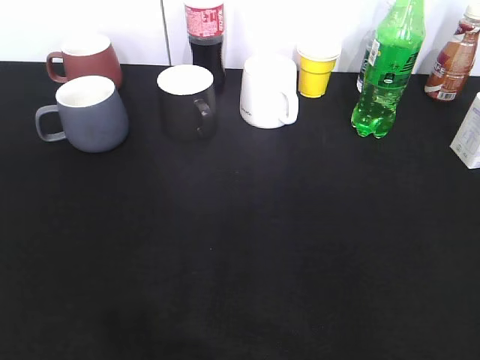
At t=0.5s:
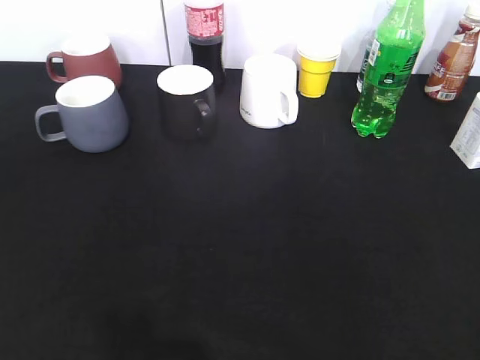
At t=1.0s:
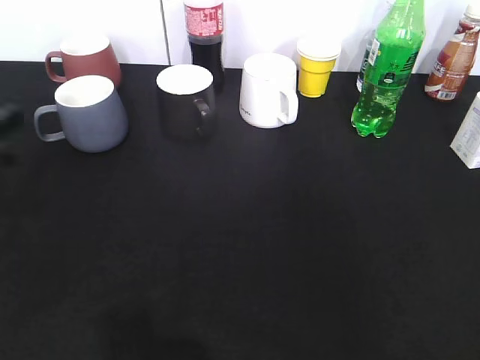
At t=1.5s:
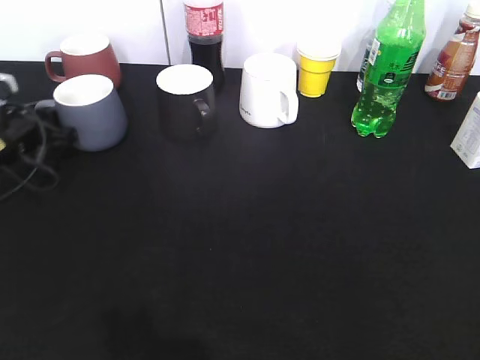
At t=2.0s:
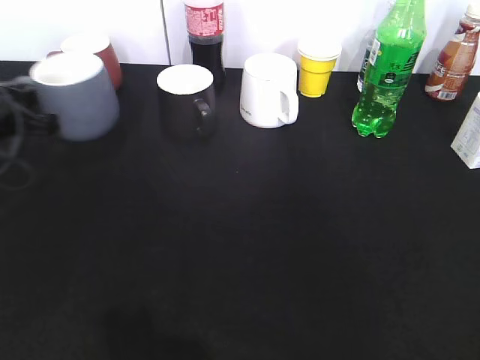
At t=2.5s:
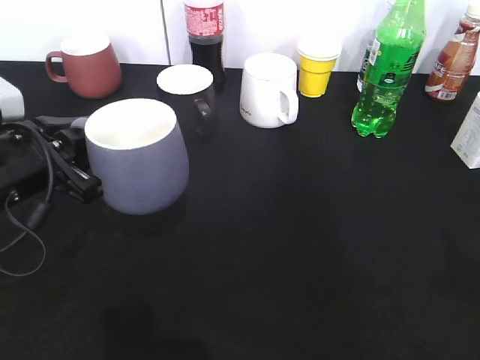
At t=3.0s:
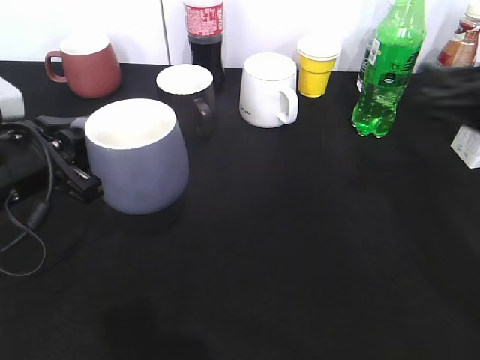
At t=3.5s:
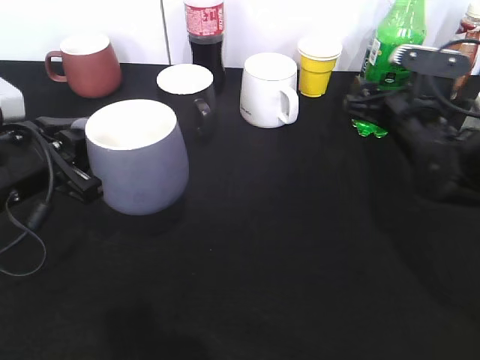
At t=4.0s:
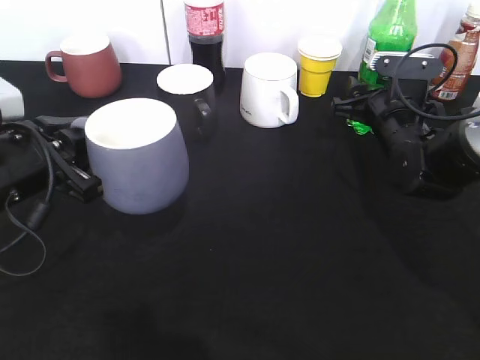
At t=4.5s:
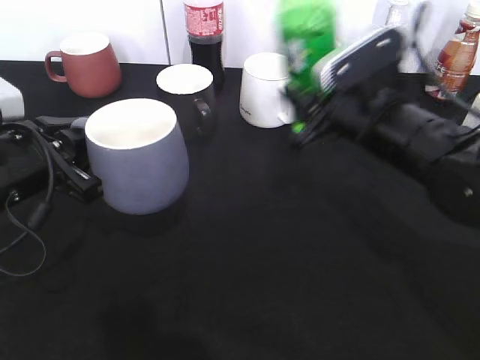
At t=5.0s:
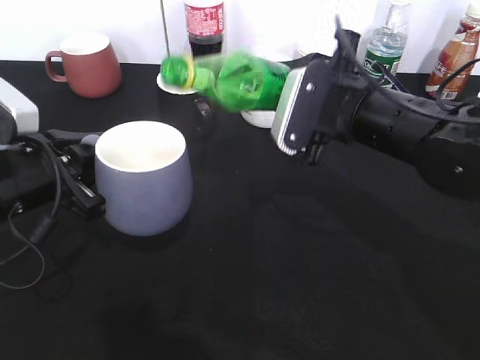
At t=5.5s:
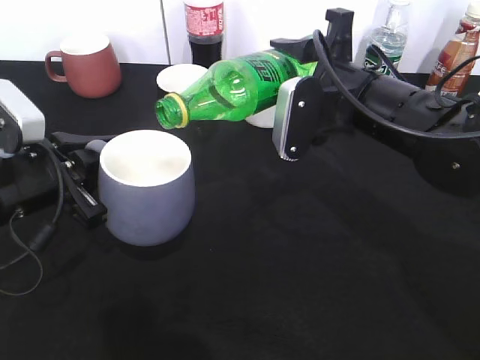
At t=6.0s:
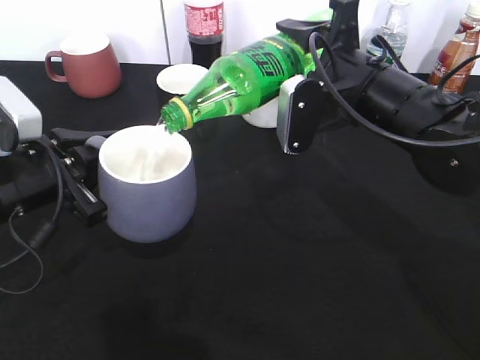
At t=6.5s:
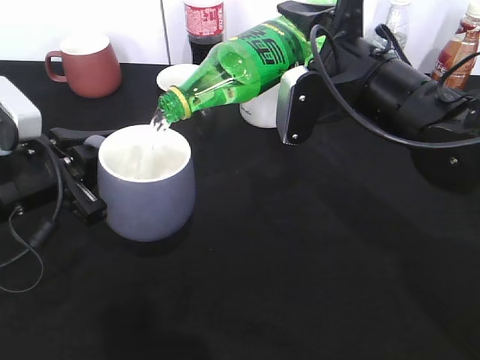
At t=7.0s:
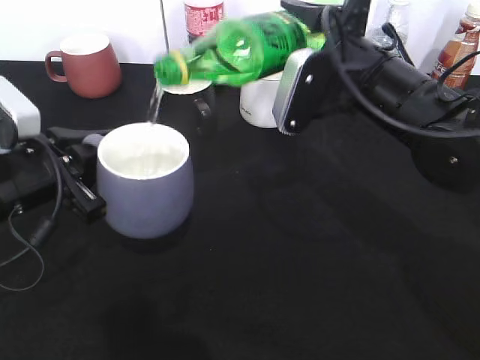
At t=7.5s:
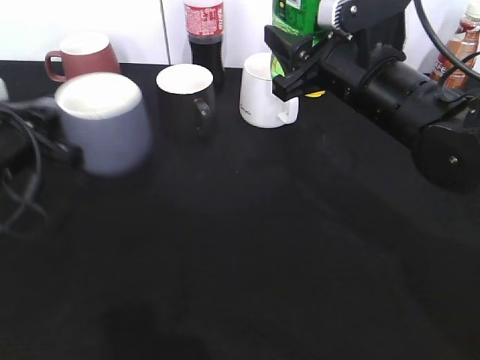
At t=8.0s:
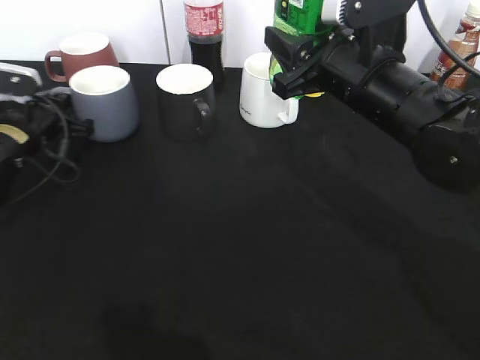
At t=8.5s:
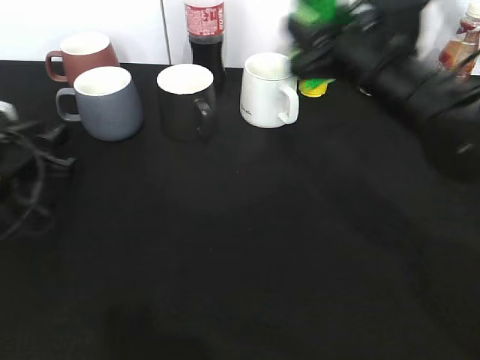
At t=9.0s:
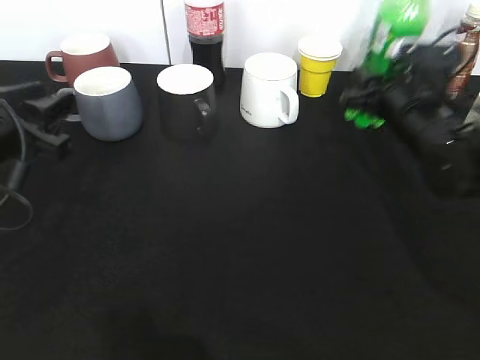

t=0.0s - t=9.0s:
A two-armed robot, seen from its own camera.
Step, t=0.0s - t=1.5s: Grasp the grey cup with left gripper.
Step, t=2.0s - t=2.5s: Lift the grey cup with left gripper.
Step, t=3.0s - t=4.0s: Grasp the bottle with sprite with right gripper.
Step, t=4.5s - t=7.0s: Pour the sprite from bottle to cup with right gripper.
t=0.0s - t=2.0s: The left gripper travels forward by some 35 cm, and closes up.
t=2.0s - t=4.5s: The right gripper travels forward and to the left by some 35 cm, and closes, while the left gripper shifts about 10 cm backward and to the right.
t=7.0s - t=9.0s: The left gripper reaches about 15 cm forward, then returns, and opens its fingers. Meanwhile the right gripper heads downward, to the right and forward, covering roughly 15 cm.

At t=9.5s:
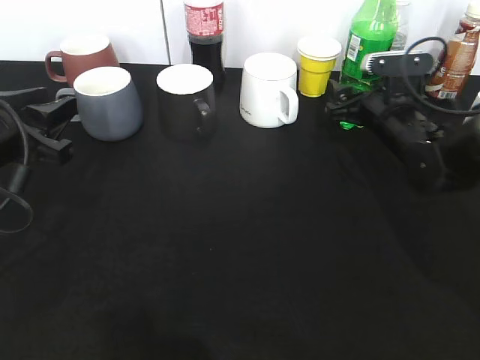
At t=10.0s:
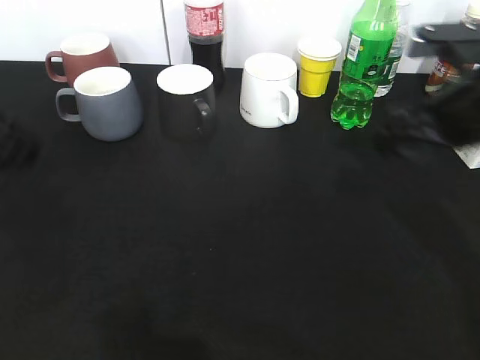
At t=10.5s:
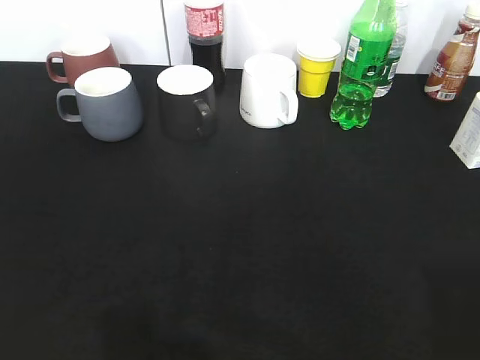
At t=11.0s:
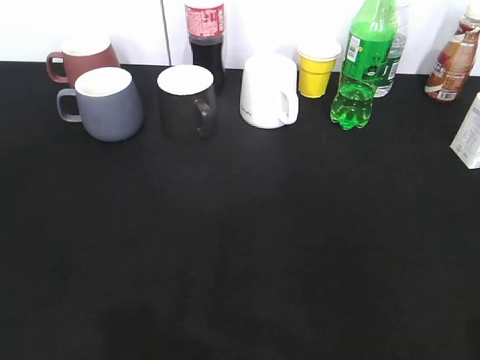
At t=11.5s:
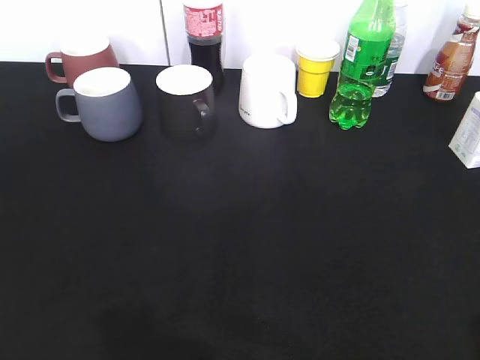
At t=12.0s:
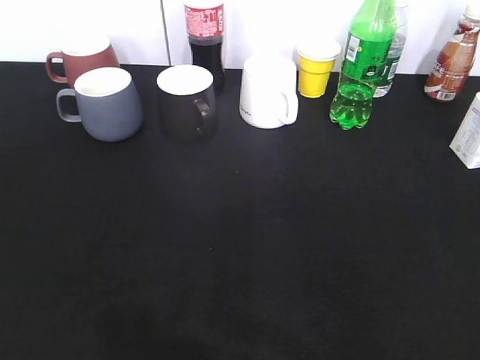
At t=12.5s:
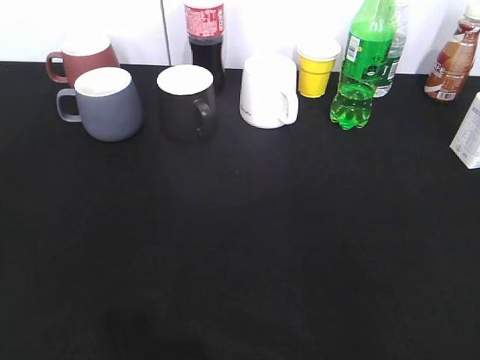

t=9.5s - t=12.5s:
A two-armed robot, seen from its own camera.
t=9.5s - t=11.0s: The left gripper heads backward, covering about 20 cm, and opens. The right gripper is displaced backward and upward by some 40 cm.

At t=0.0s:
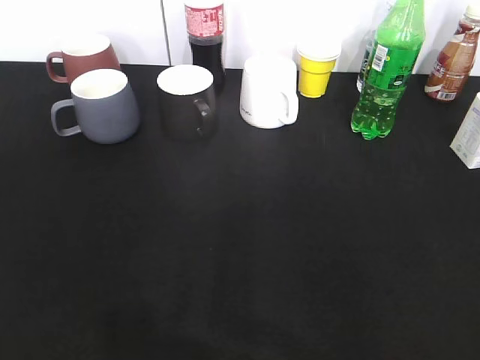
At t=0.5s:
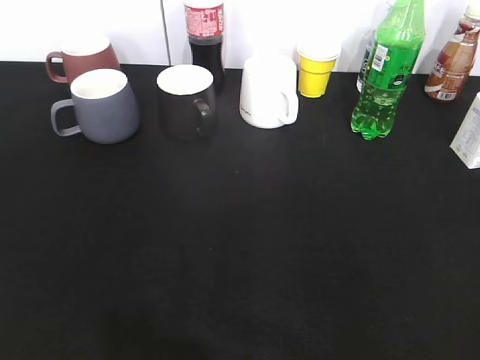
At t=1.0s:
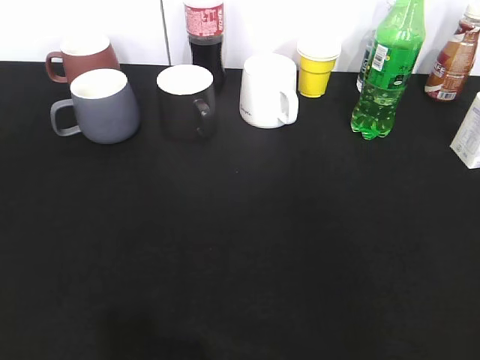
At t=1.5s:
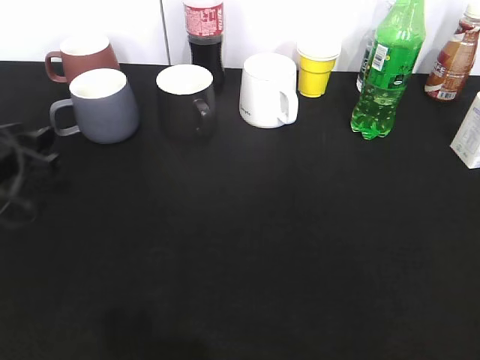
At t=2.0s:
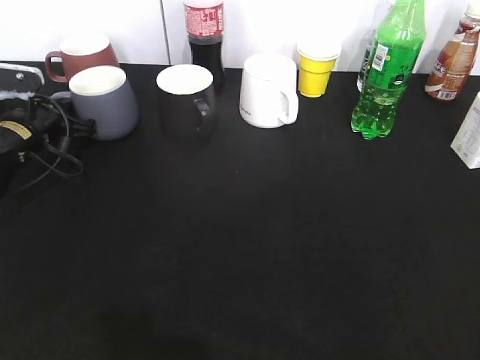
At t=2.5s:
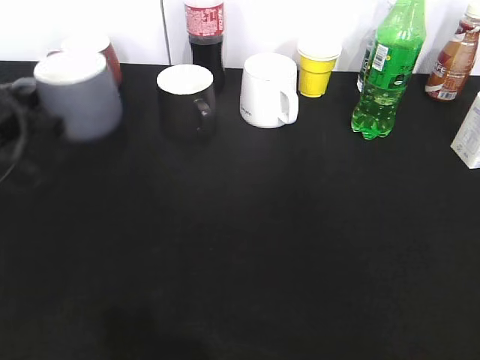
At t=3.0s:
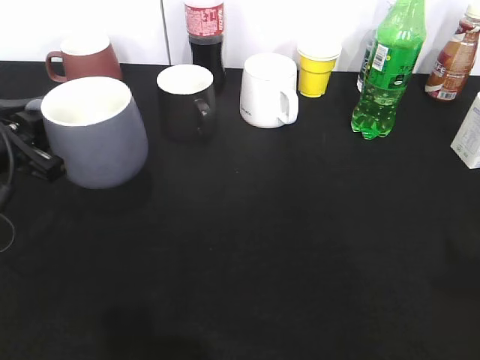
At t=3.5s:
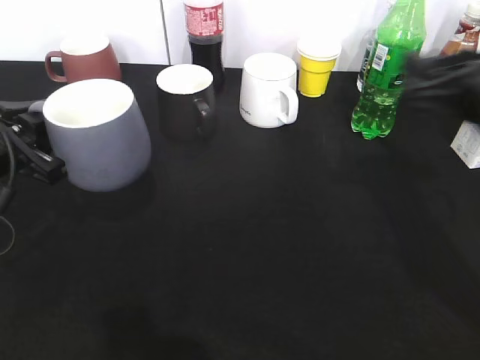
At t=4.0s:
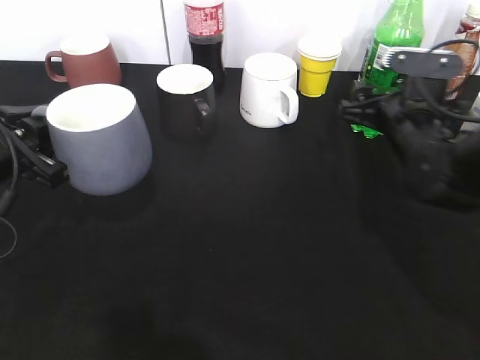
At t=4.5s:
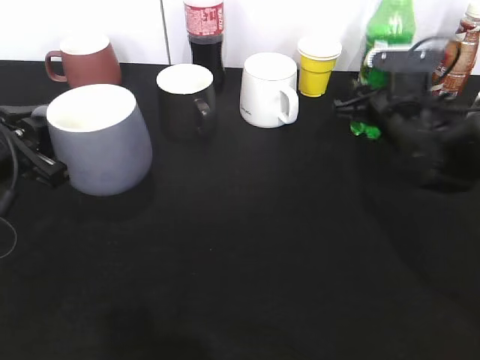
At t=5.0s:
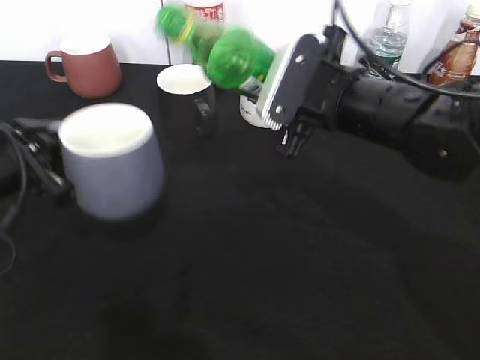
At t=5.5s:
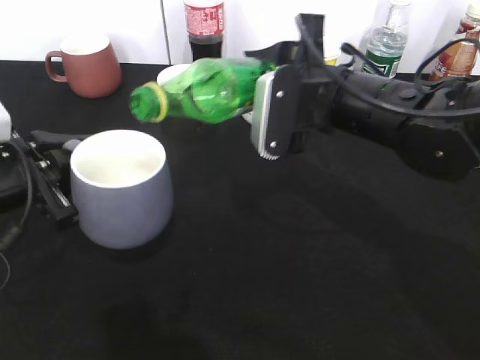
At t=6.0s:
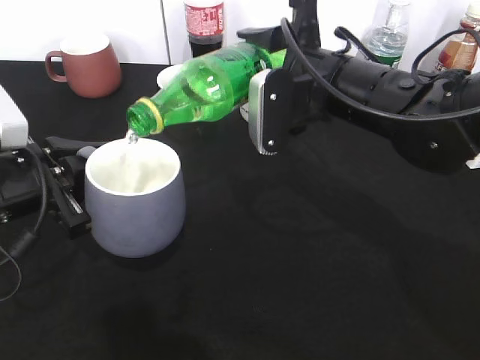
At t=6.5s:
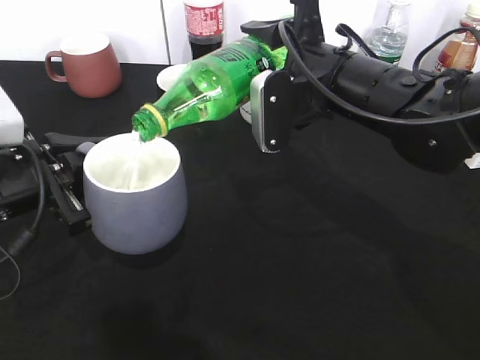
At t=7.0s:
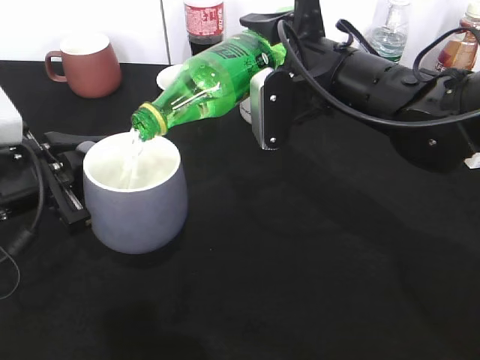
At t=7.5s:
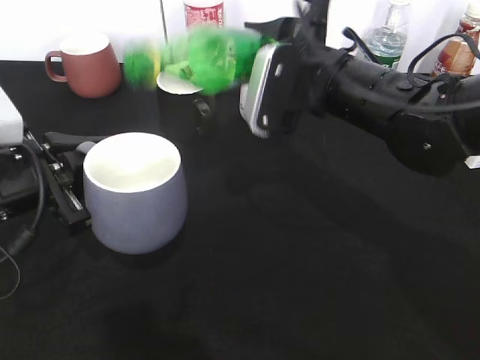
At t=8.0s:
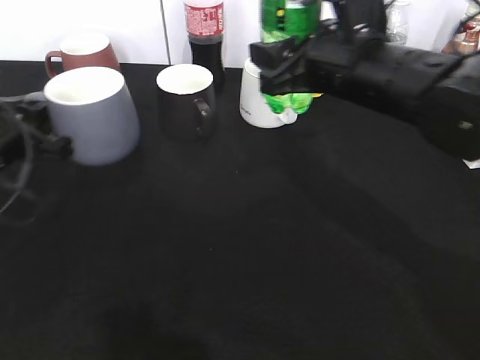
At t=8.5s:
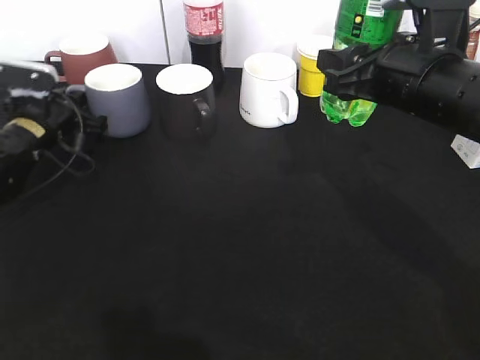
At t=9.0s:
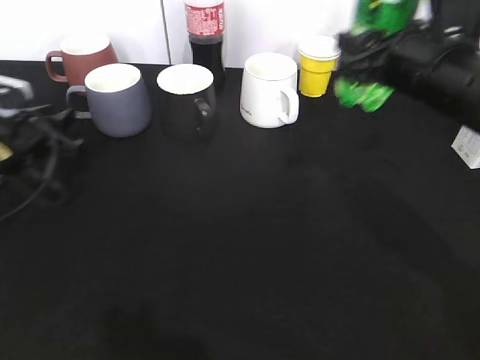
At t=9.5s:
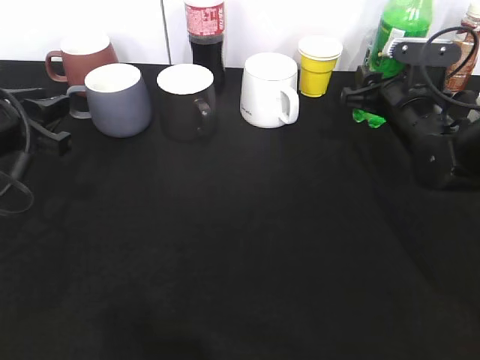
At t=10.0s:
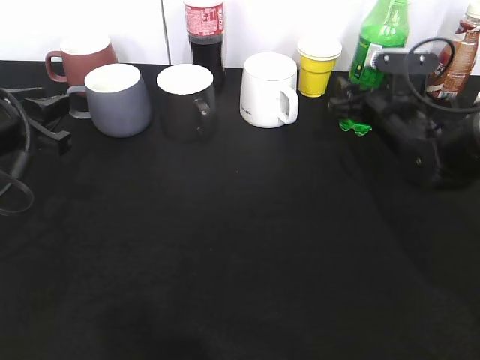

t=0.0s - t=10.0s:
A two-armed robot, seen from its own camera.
Step, t=0.0s - t=2.0s: Grasp the grey cup with left gripper.
Step, t=2.5s - t=3.0s: Lift the grey cup with left gripper.
Step, t=3.5s - t=4.0s: Grasp the bottle with sprite with right gripper.
Step, t=4.5s - t=7.5s: Pour the sprite from bottle to cup with right gripper.
t=0.0s - t=2.0s: The left gripper is displaced forward and downward by roughly 40 cm, and closes.
t=2.0s - t=4.0s: The right gripper goes some 40 cm forward and downward. The left gripper moves backward and upward, approximately 15 cm.
t=4.0s - t=6.0s: The right gripper moves to the left and upward, some 15 cm, and closes up.
t=6.0s - t=8.0s: The left gripper travels forward by some 5 cm.
t=8.0s - t=10.0s: The left gripper travels forward and back again, roughly 10 cm each way, and opens its fingers, while the right gripper travels downward, to the right and forward by some 20 cm, and opens up.

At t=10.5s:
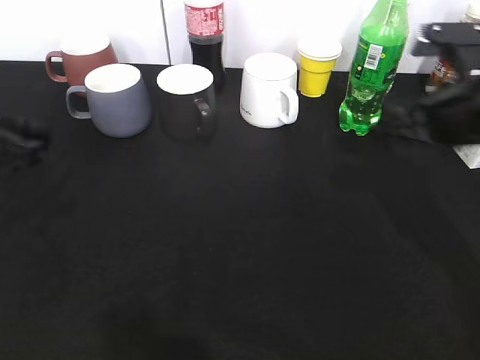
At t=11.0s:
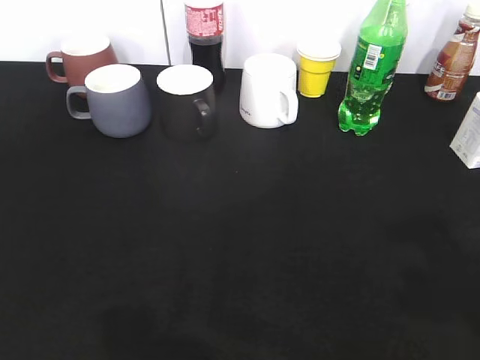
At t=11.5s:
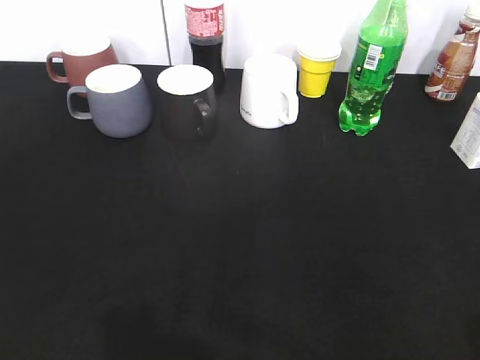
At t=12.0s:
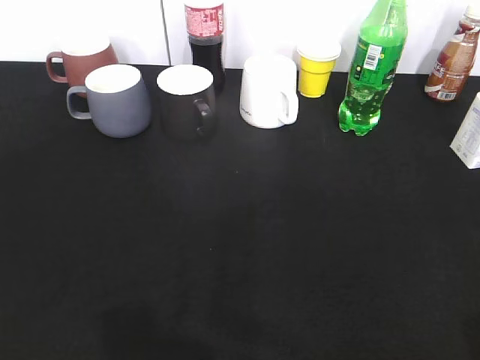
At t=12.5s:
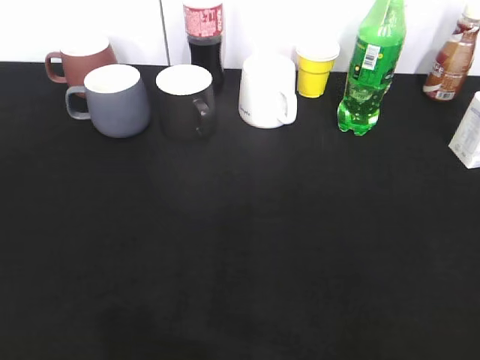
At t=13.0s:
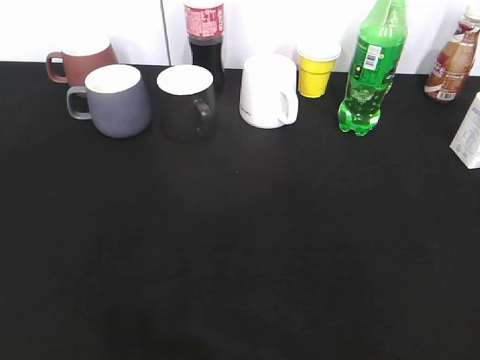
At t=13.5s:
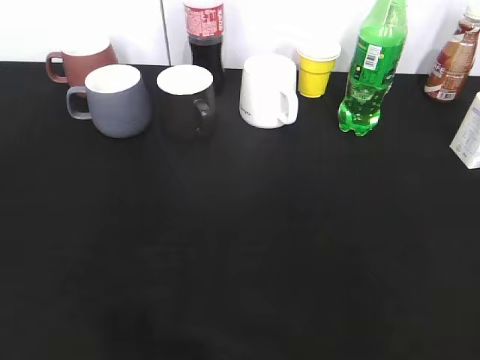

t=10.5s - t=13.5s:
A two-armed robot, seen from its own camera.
t=10.5s - t=12.0s: Both grippers move backward, approximately 25 cm.
